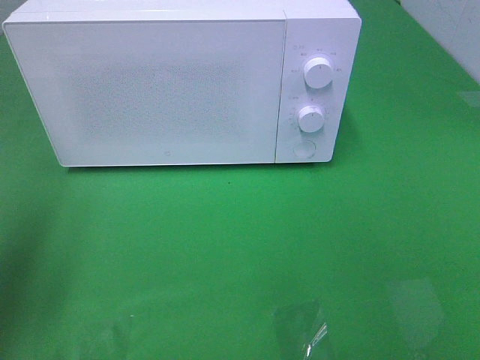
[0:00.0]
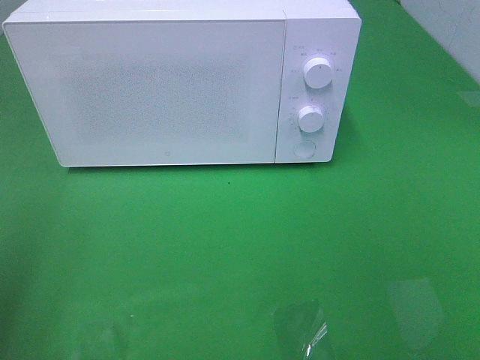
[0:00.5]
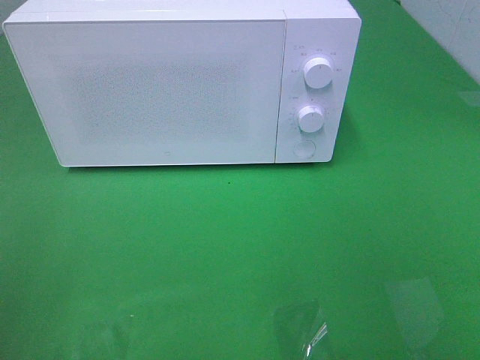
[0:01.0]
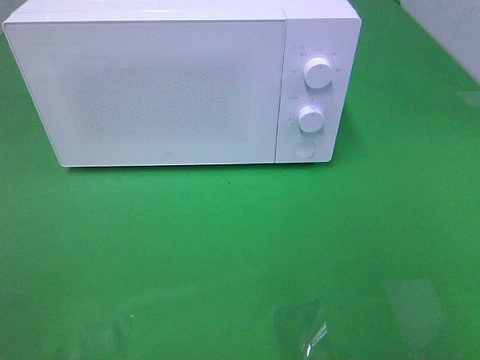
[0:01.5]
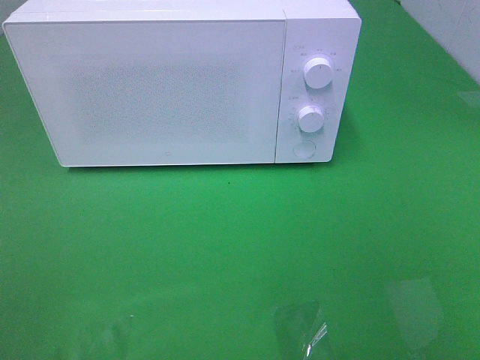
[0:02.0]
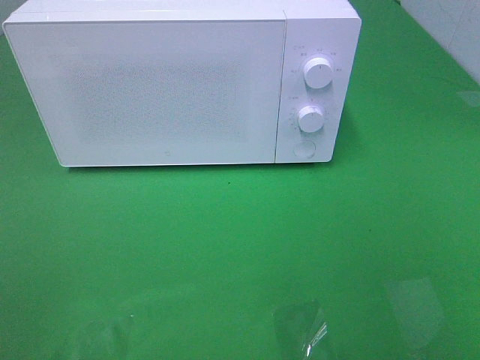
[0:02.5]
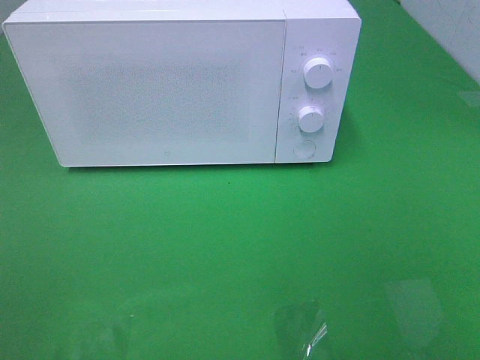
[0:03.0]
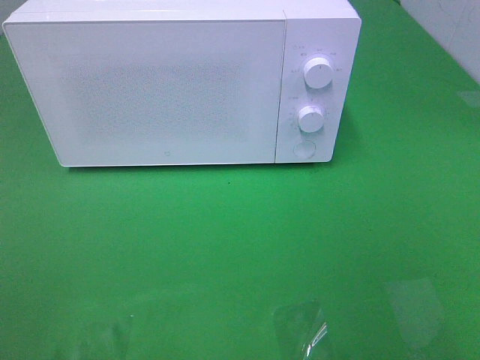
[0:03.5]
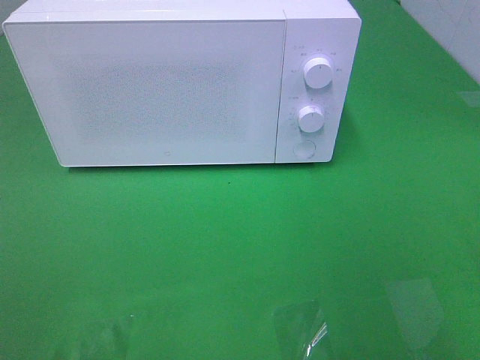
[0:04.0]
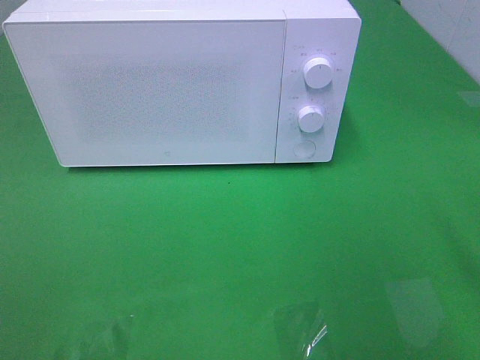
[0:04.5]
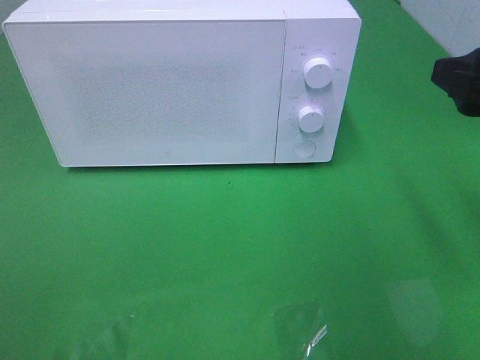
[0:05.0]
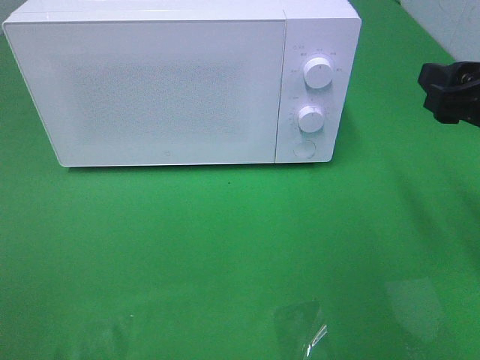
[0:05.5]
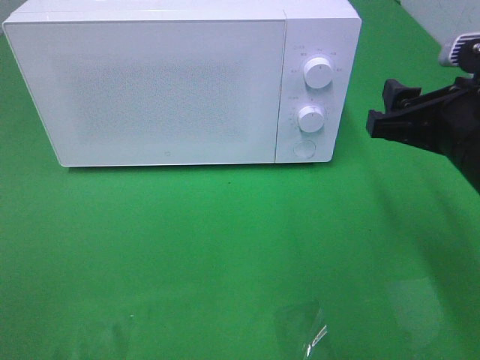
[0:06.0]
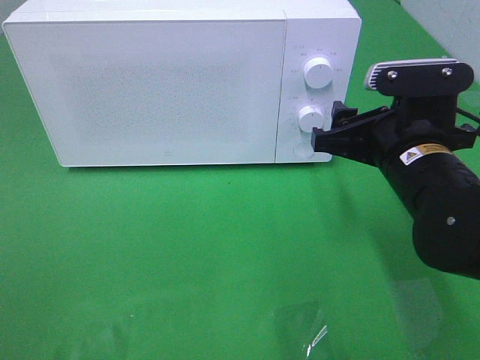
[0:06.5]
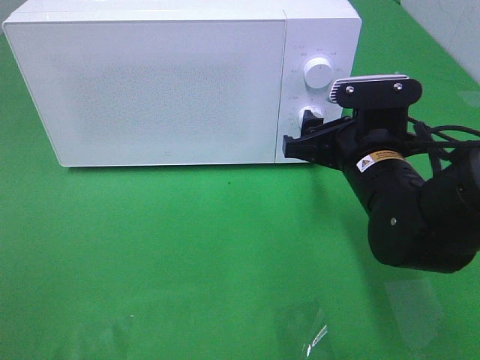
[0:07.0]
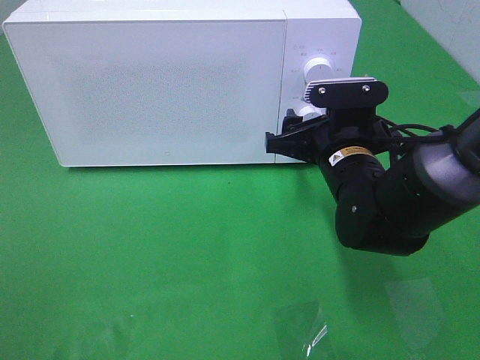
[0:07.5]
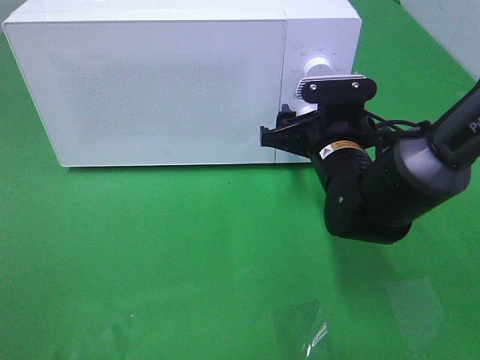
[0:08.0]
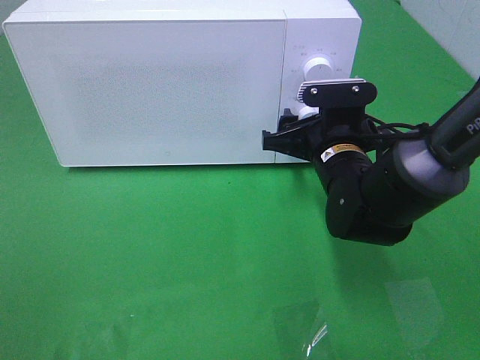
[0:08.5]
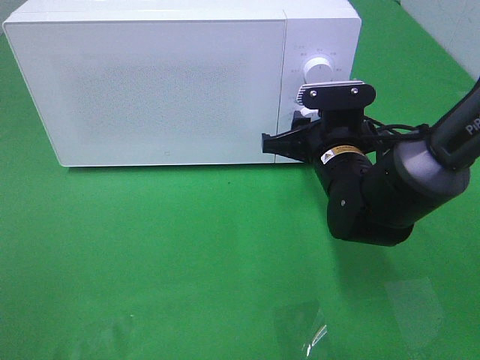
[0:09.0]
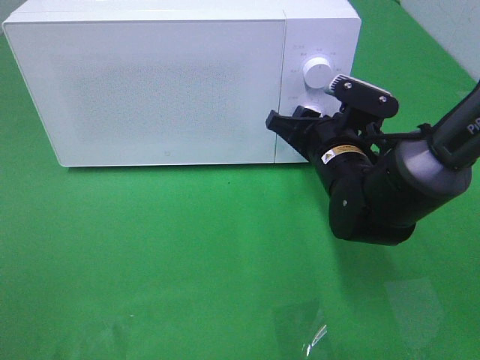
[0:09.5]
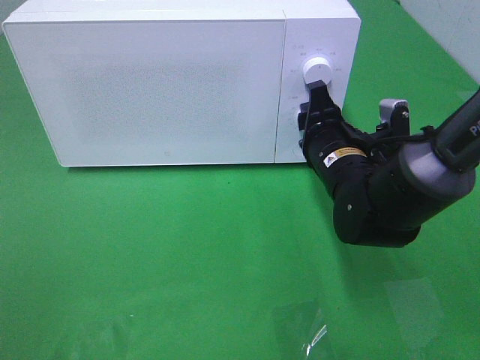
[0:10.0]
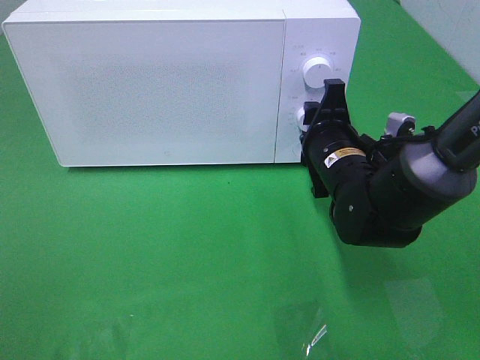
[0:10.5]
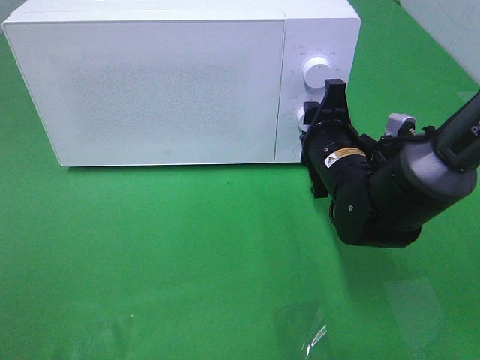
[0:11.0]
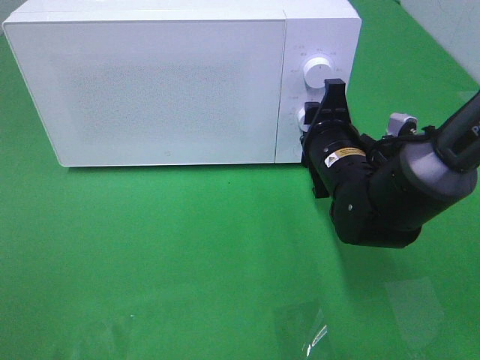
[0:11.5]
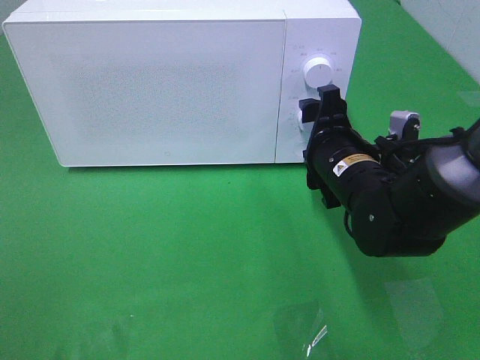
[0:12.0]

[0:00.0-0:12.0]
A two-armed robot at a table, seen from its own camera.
Task of the whole recording: Heat the burger.
Step, 0:00.0 to 0:12.0: Right hand: twist timer button.
0:00.0 to 0:02.0: The left gripper is displaced backward by some 20 cm.
0:04.0 to 0:06.0: The right gripper heads forward, downward and to the left, covering roughly 15 cm.
0:06.0 to 0:08.0: The right gripper heads forward, downward and to the left, covering some 15 cm.
0:08.0 to 0:10.0: The right gripper closes its fingers.
0:10.0 to 0:12.0: The right gripper opens up.

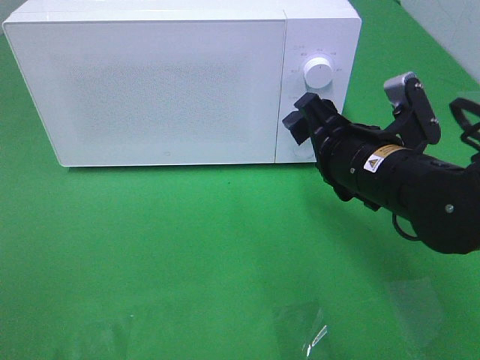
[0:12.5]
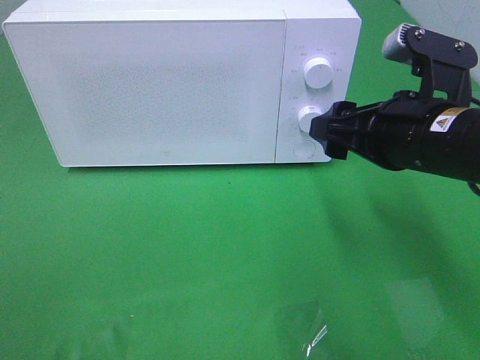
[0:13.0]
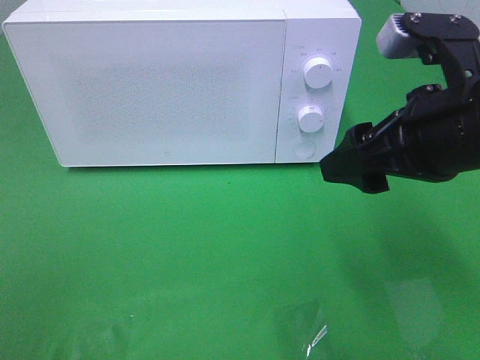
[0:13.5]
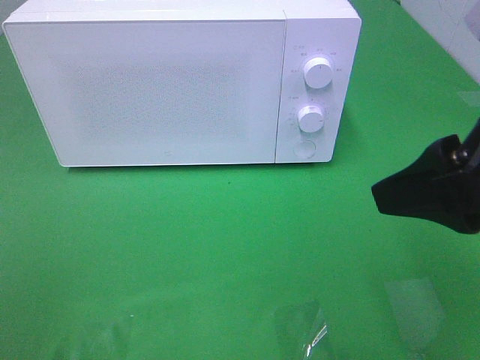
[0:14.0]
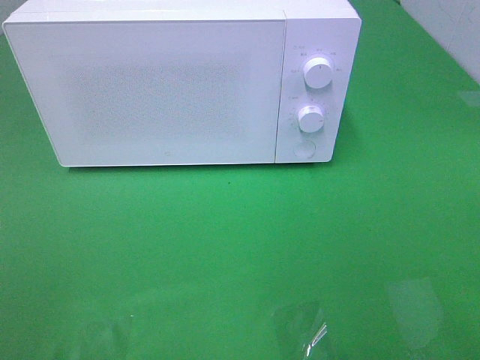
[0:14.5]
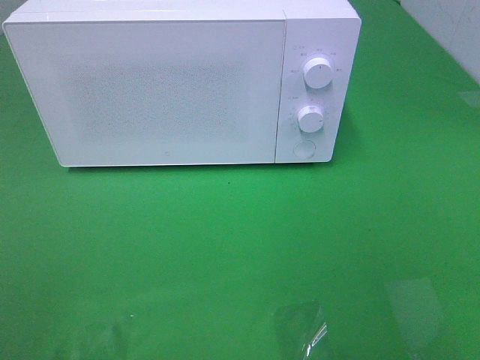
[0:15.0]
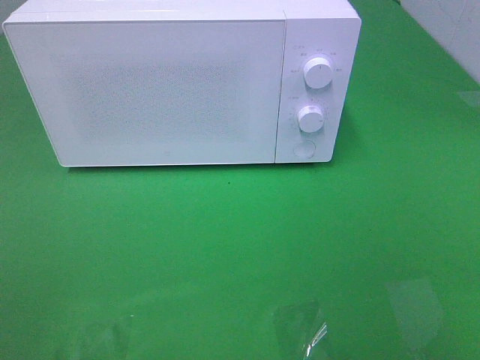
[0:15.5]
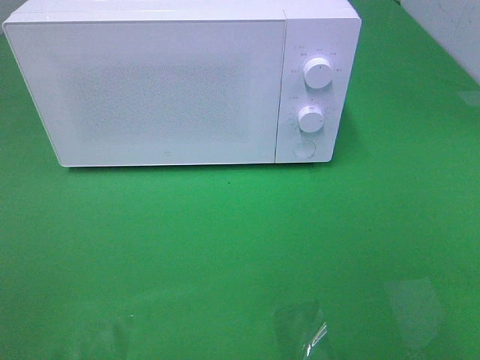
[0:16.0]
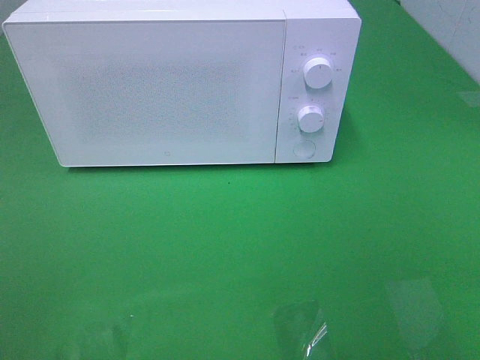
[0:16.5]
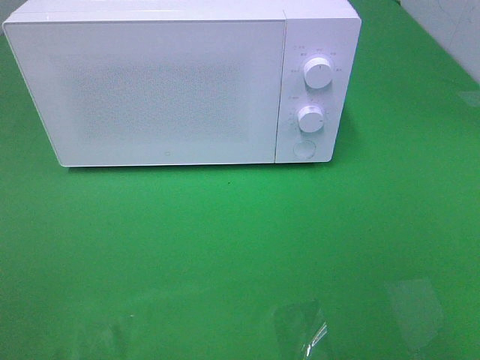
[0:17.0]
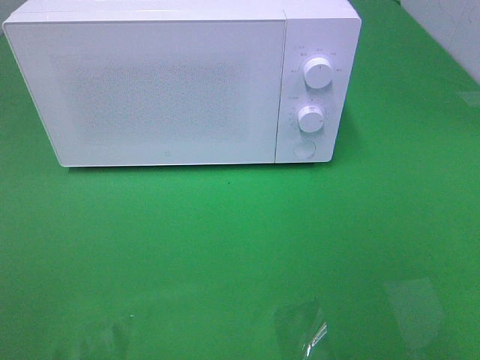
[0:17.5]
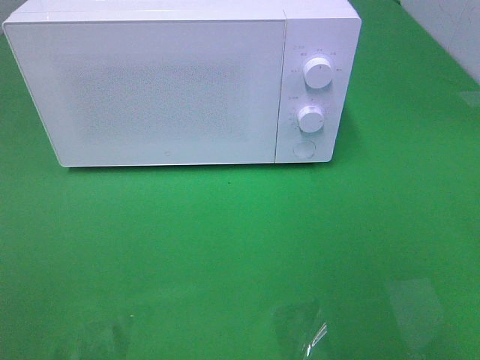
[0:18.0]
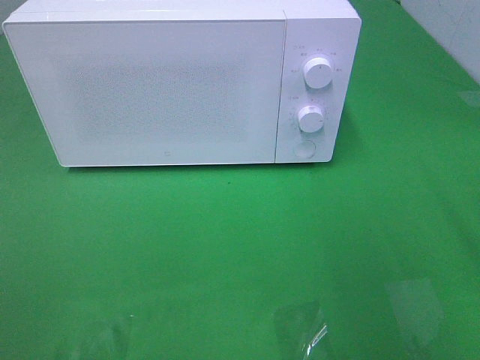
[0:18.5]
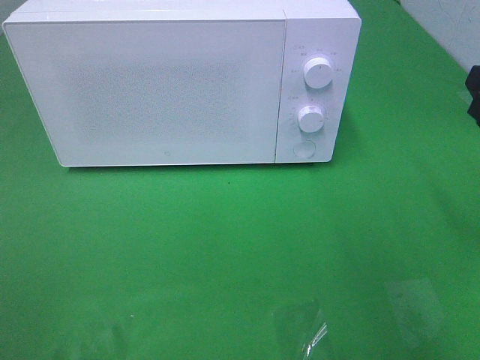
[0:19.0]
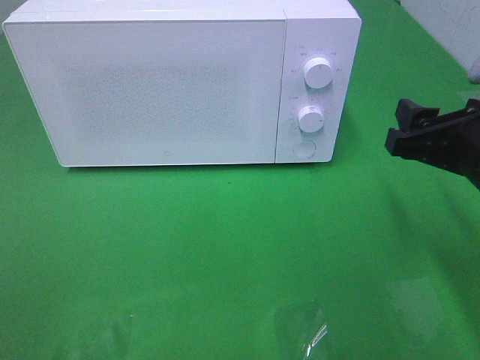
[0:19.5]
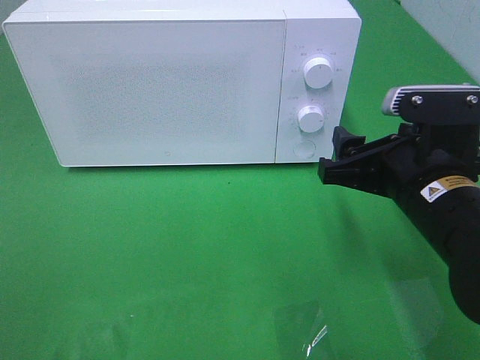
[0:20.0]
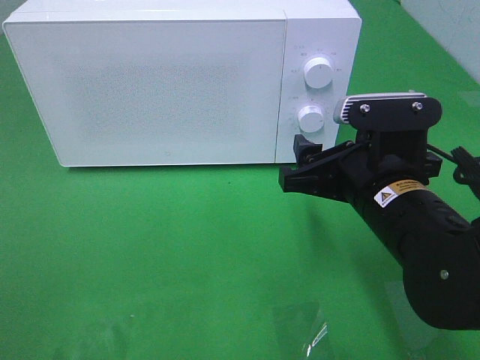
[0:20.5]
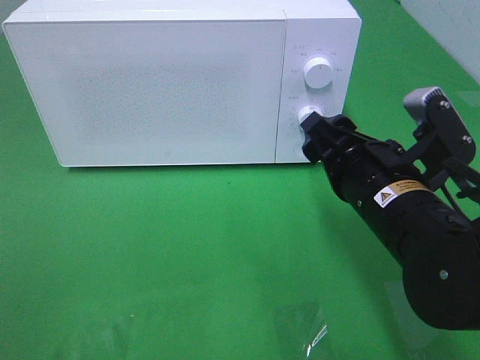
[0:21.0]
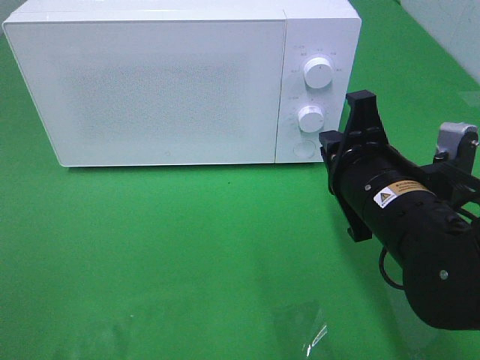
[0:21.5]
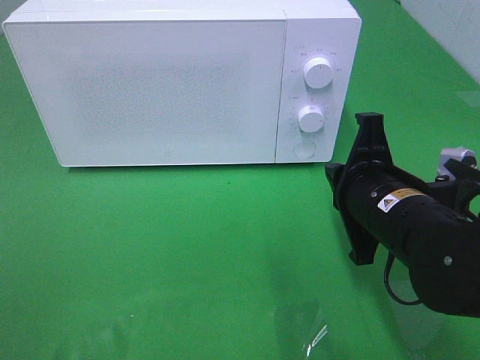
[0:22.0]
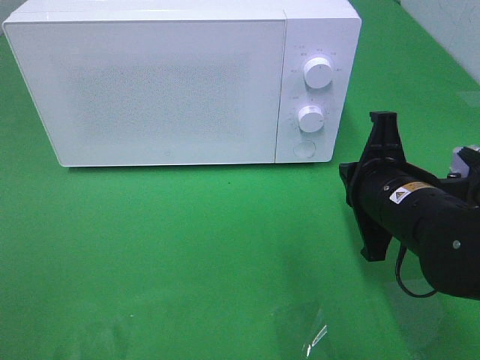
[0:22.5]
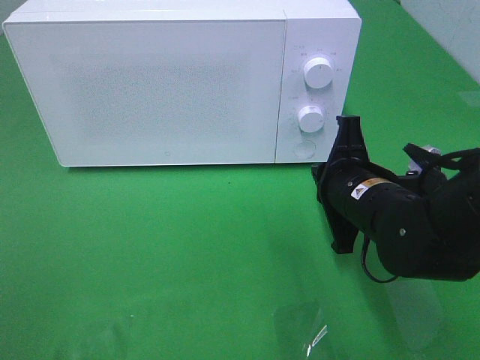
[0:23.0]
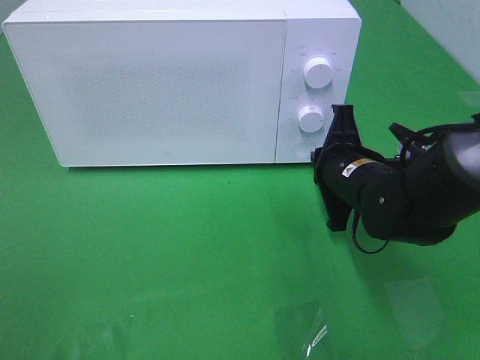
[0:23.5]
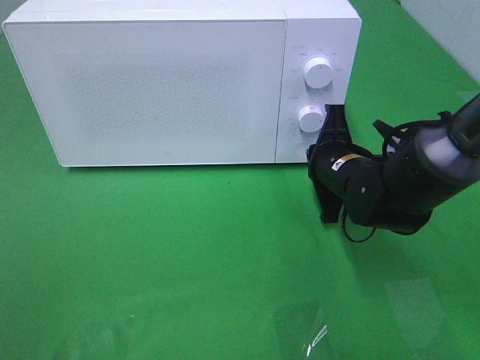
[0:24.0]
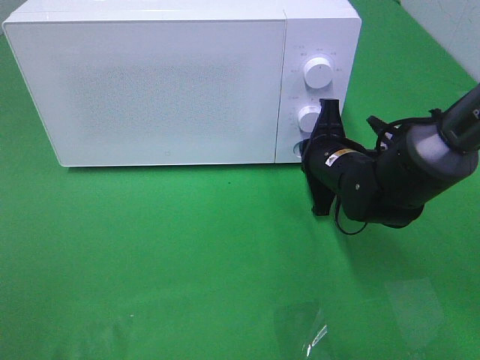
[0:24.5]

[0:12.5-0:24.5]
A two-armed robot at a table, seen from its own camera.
Task of the whole recording: Heat the burger.
0:12.5 to 0:14.5: The right gripper is displaced backward, upward and to the right by about 25 cm.
0:18.5 to 0:20.5: The right gripper is displaced to the left and downward by some 20 cm.
0:20.5 to 0:22.5: The right gripper closes its fingers.
0:22.5 to 0:24.5: The right gripper heads forward and downward, covering approximately 10 cm.

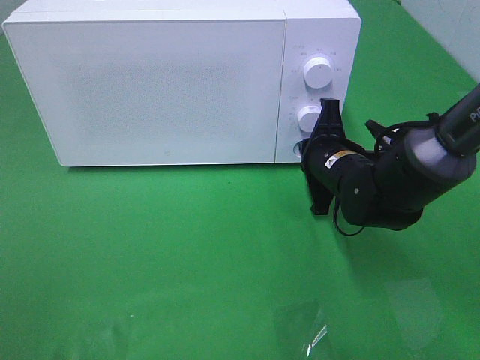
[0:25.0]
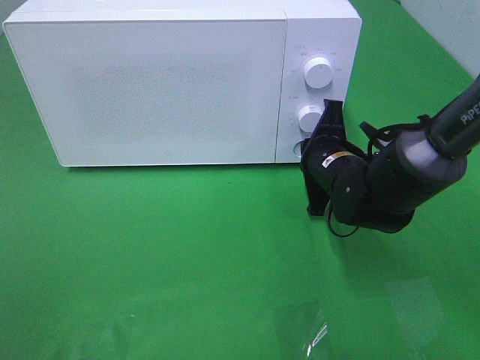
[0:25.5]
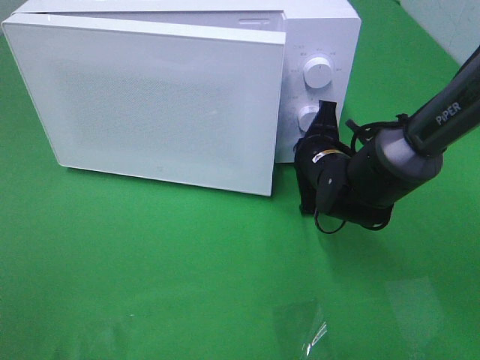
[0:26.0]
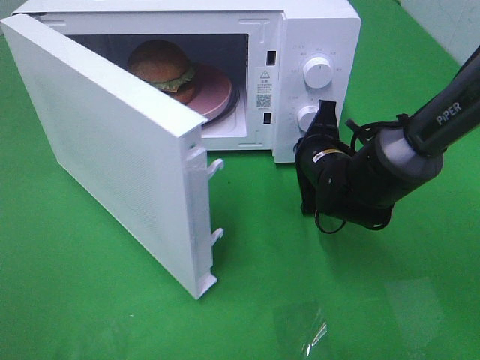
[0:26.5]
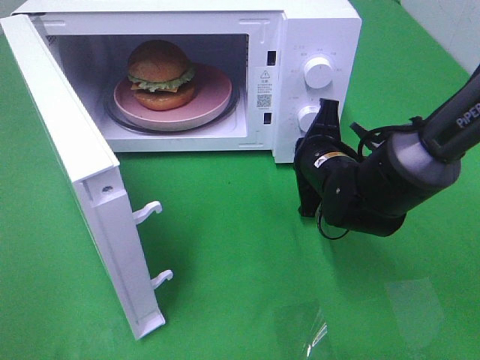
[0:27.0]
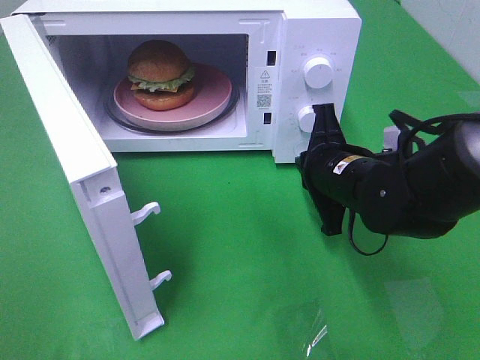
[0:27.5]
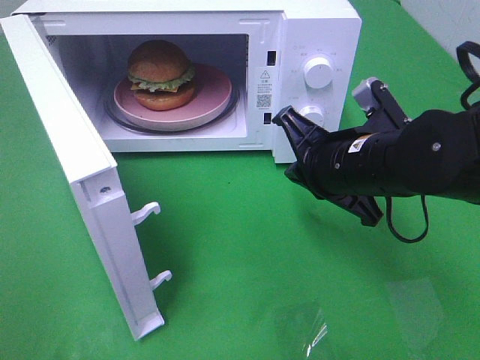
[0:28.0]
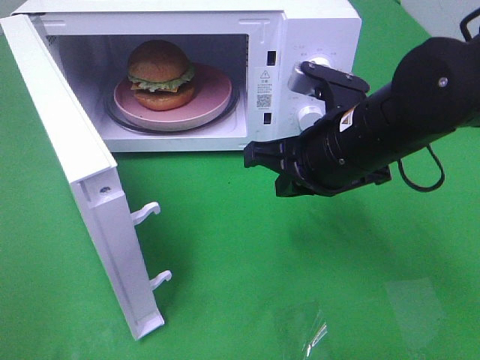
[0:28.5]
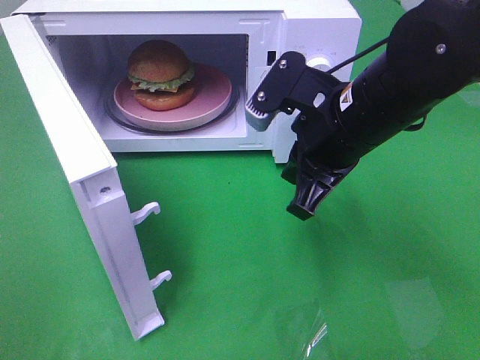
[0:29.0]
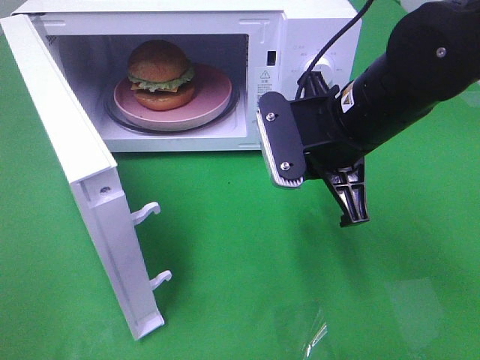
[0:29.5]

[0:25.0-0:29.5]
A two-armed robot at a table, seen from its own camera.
Task of the whole recording: Heat the burger.
Step, 0:25.0 to 0:27.0: Right hand: press the switch.
0:27.0 to 0:29.5: The right gripper is displaced upward and backward by roughly 15 cm.
